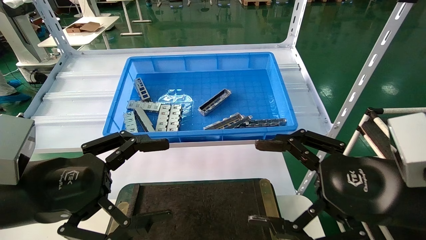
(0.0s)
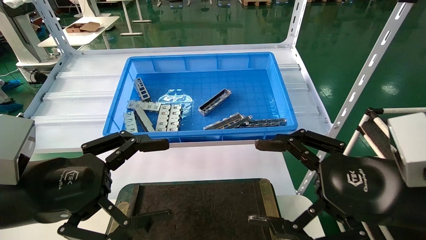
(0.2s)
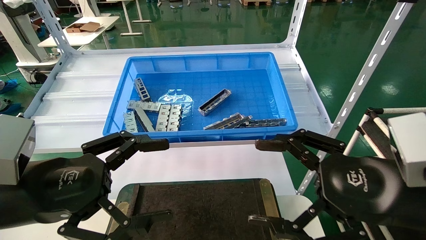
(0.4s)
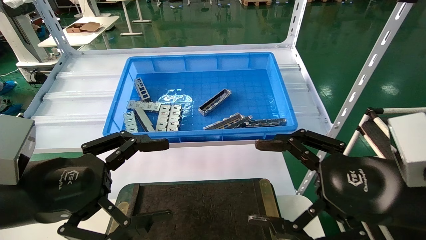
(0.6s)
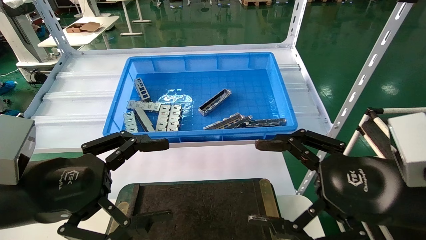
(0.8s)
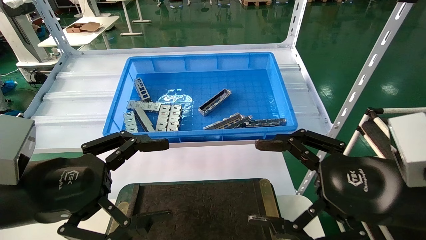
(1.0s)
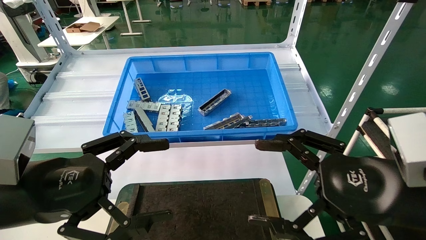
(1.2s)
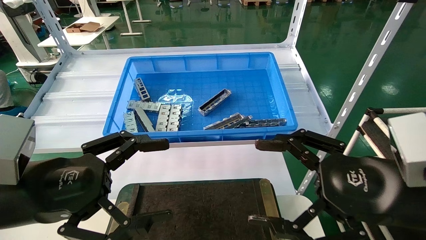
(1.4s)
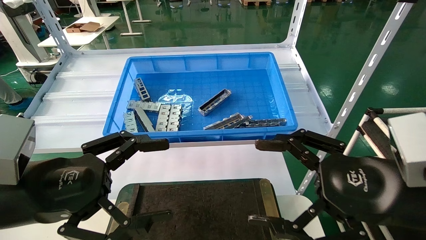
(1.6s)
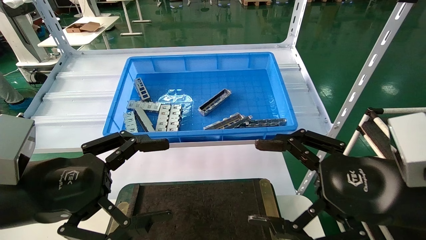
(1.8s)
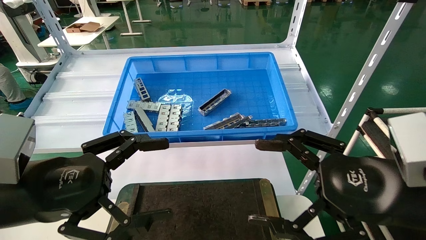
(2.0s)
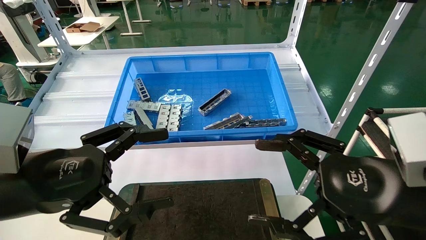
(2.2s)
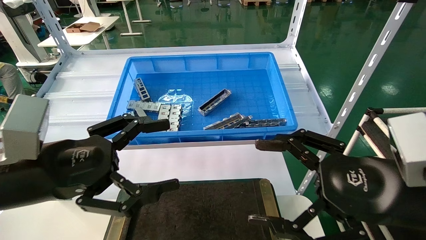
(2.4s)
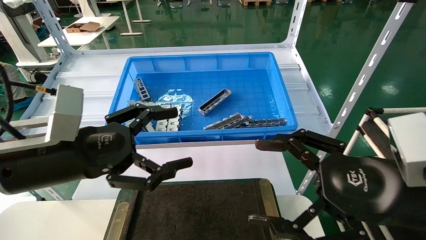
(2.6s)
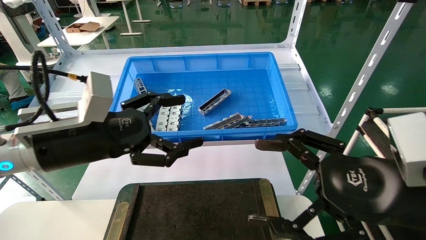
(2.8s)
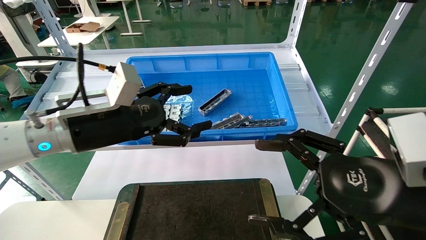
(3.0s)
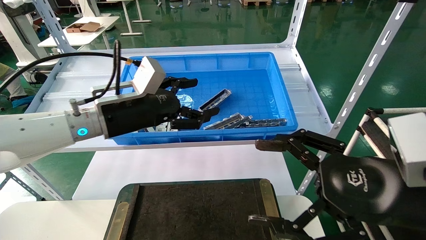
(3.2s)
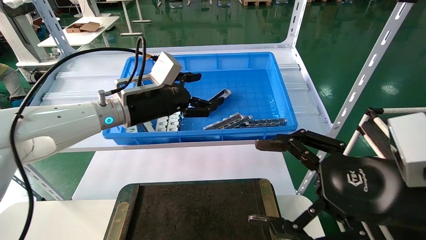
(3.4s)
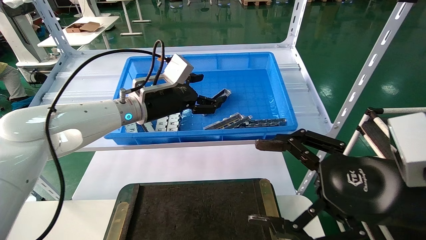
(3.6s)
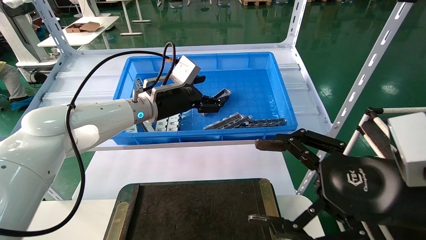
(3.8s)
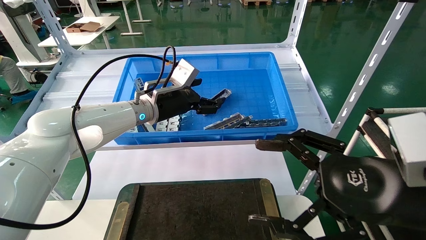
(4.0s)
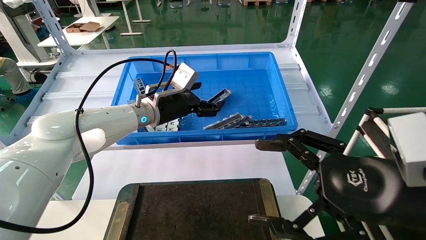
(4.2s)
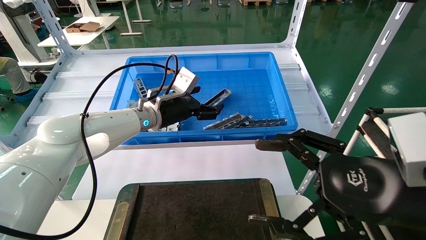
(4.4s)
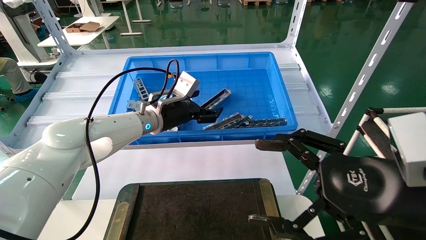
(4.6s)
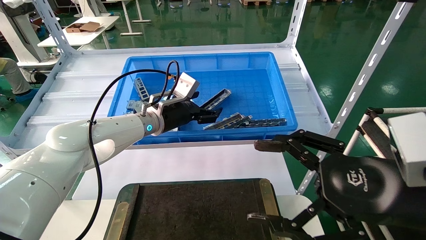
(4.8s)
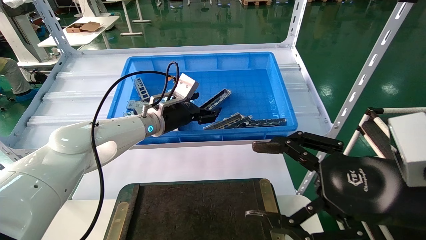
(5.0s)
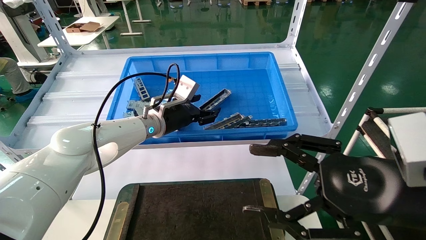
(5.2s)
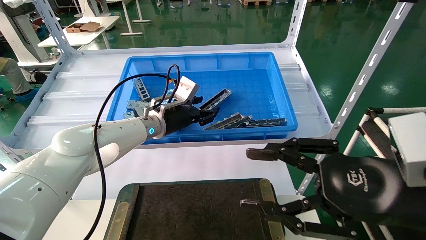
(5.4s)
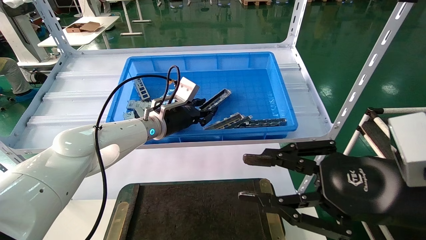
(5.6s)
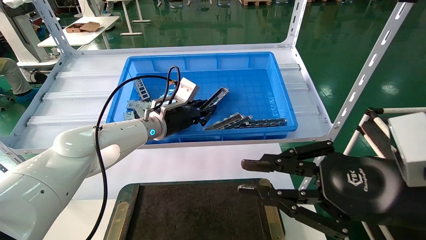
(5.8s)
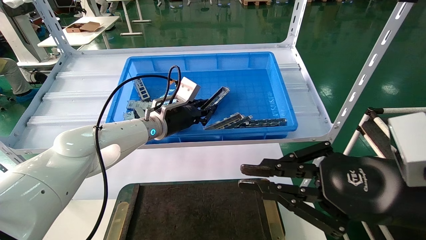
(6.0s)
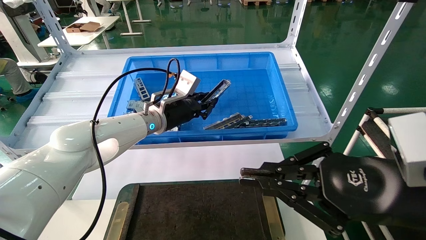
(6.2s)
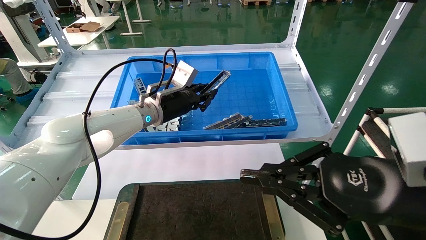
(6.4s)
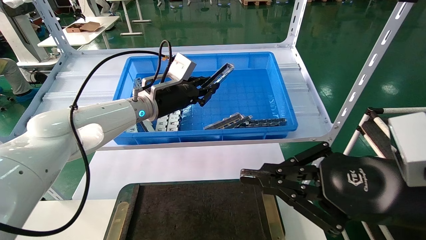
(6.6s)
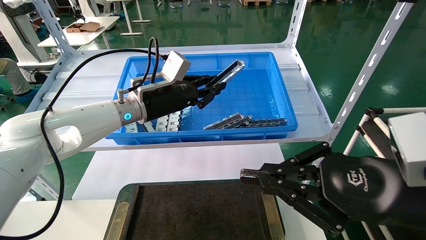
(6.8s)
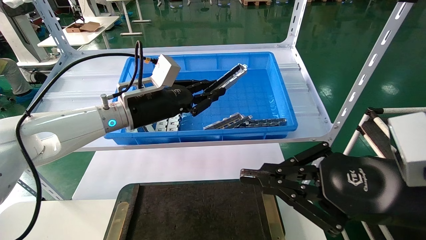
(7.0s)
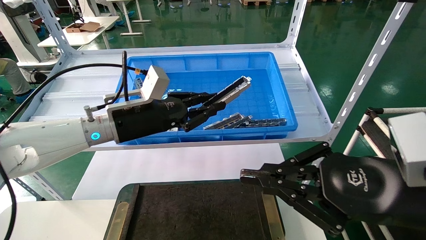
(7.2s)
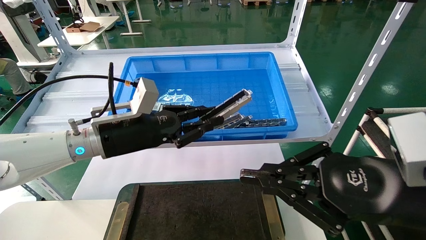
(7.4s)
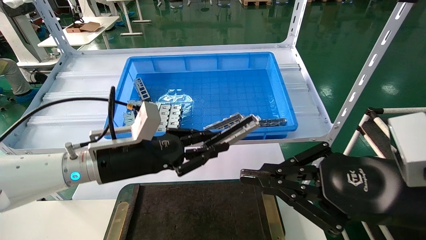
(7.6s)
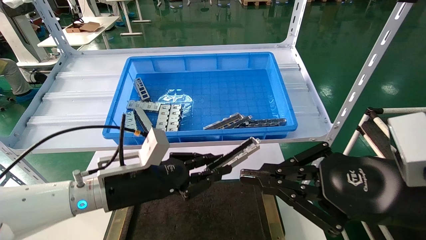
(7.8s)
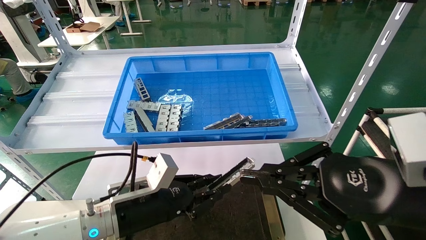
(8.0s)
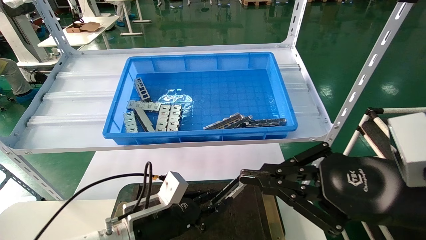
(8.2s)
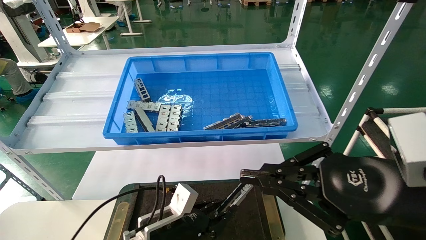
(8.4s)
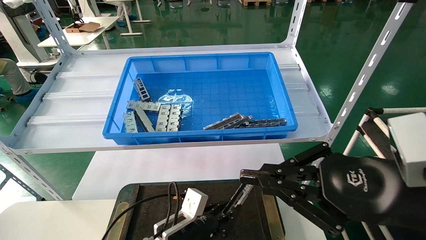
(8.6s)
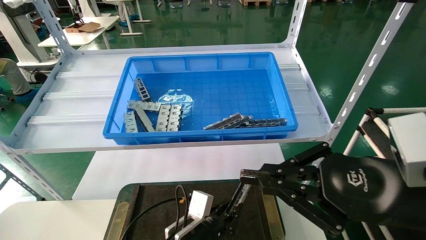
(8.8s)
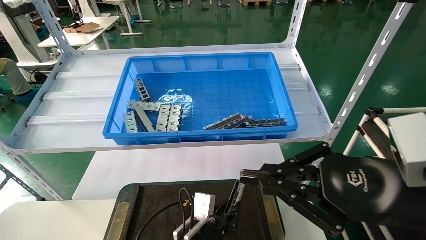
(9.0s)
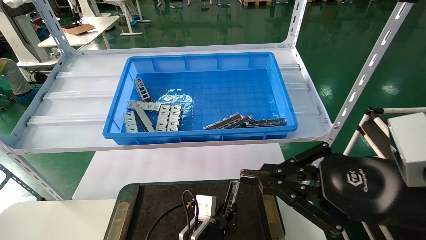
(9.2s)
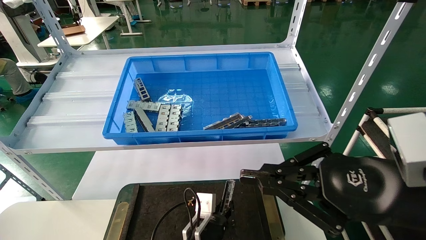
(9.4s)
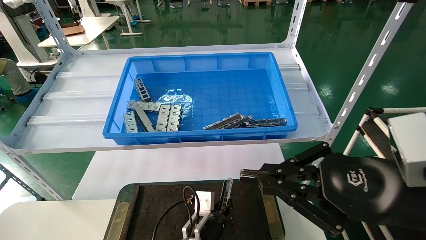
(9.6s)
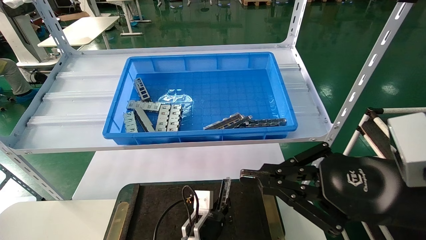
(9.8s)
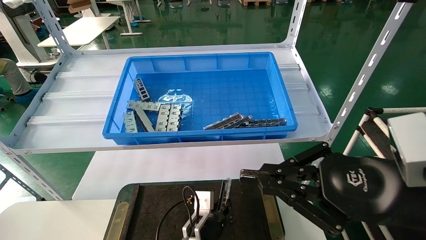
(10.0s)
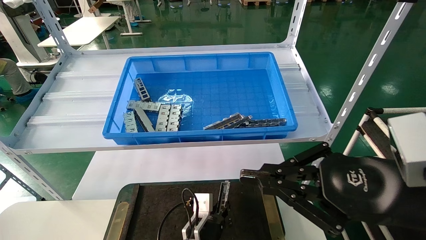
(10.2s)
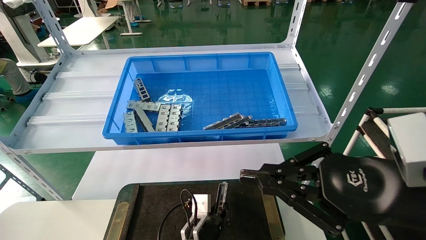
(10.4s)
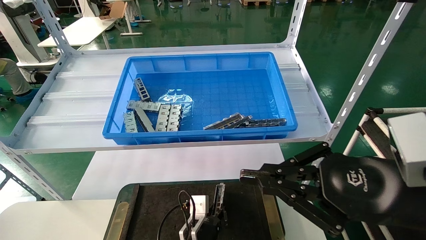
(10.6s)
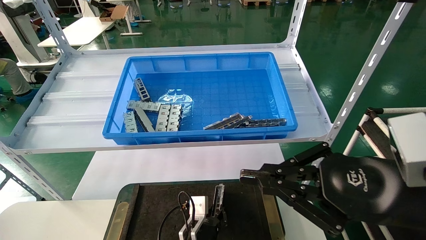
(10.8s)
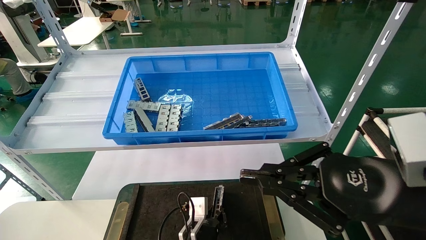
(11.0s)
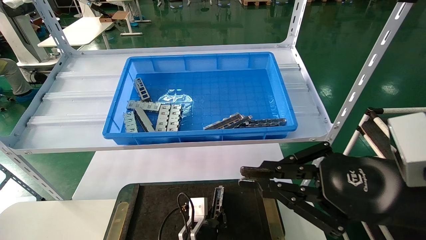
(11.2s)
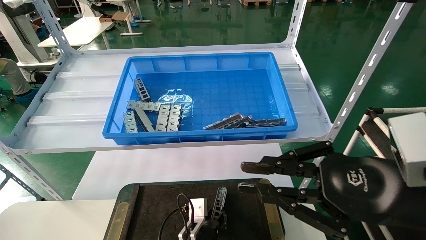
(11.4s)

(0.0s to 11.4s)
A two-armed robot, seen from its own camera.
Task of the whole recording: Grasp the part with one hand and place it on the black container.
Step, 2.6s - 6.8s: Pick up the front USB bracket from the feeding area.
0.0s - 1.4s: Both grippers stay about where they are.
1.4s - 2.8s: The left gripper shifts roughly 10 cm forward.
2.8s - 4.2s: The left gripper is displaced forward and to the right by roughly 20 cm.
4.2s - 5.6s: The left gripper closes its fingers. The right gripper closes.
5.6s - 7.2s: The left gripper travels backward and to the left by roughly 10 cm, and closes up. Meanwhile the right gripper closes.
7.2s - 8.6s: The left gripper is displaced downward by roughly 25 cm.
8.6s - 10.0s: The left gripper travels to the right and downward by some 10 cm.
10.0s - 11.4s: The grippers move only a little.

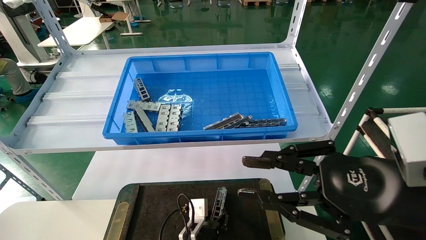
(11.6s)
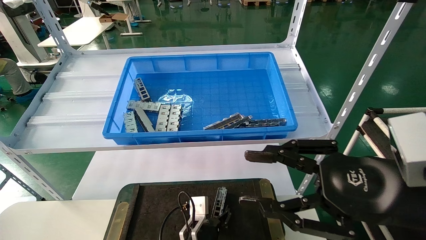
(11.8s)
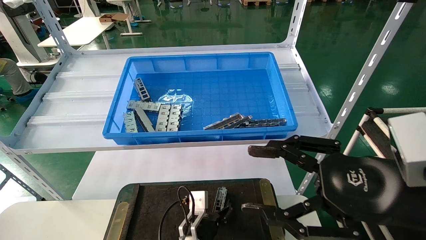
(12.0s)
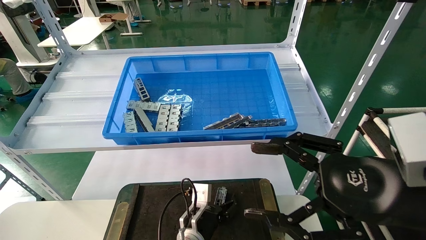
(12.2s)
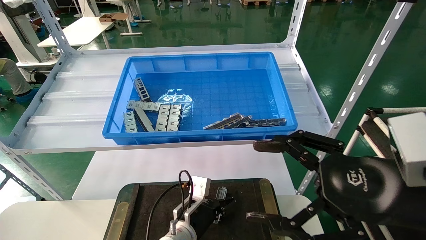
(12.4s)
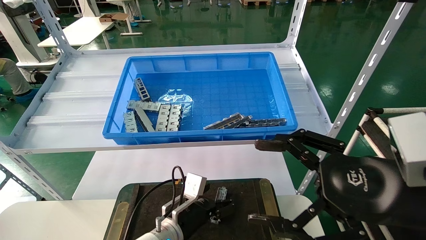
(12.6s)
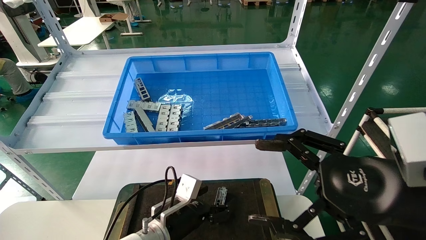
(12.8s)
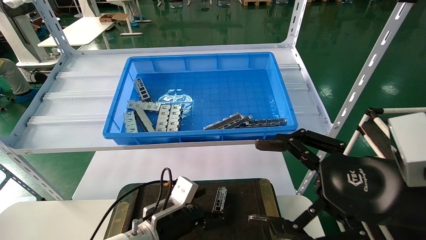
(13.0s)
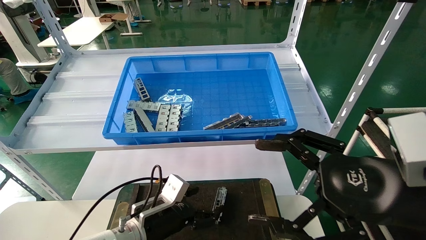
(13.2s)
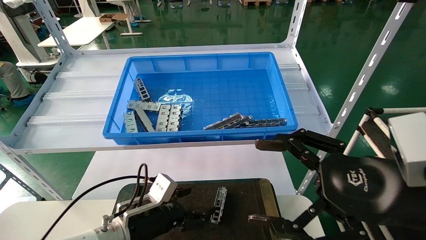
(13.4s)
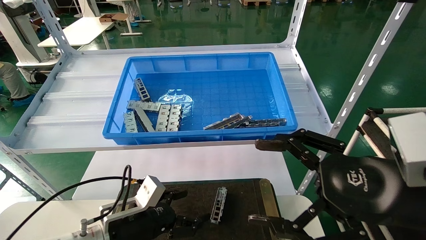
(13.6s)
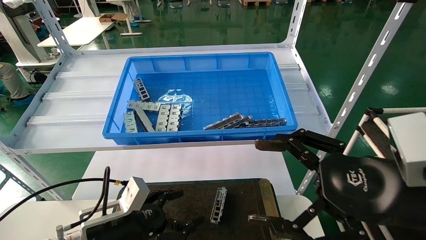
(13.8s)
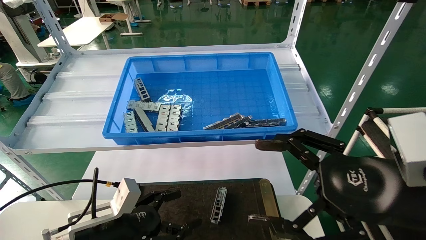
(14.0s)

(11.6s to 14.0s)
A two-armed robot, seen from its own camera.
Task of the whole recording: Grasp the part with one hand and place it on the black container.
11.6s - 12.8s: The right gripper opens its fingers. The left gripper shifts approximately 10 cm upward and to the left, and opens up.
12.8s - 14.0s: The left gripper travels to the left, backward and upward by roughly 15 cm.

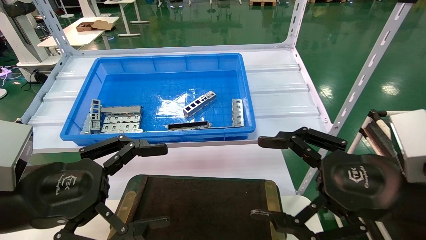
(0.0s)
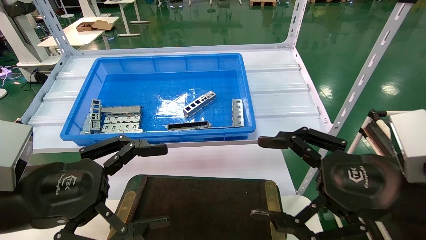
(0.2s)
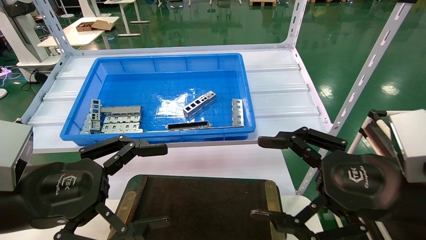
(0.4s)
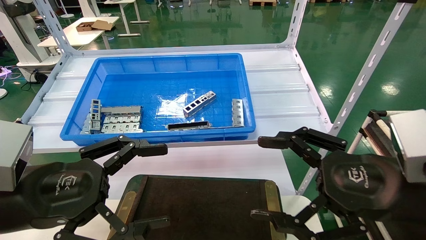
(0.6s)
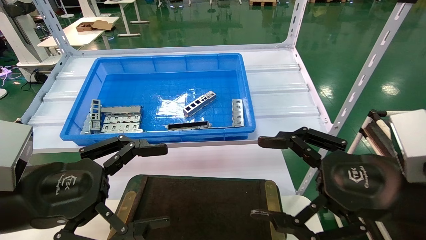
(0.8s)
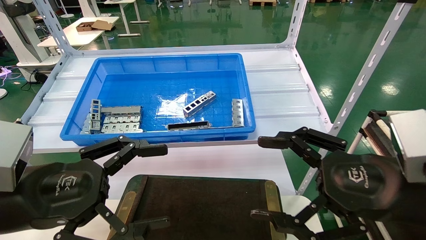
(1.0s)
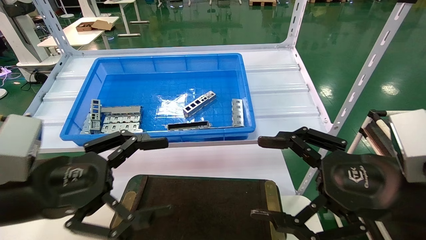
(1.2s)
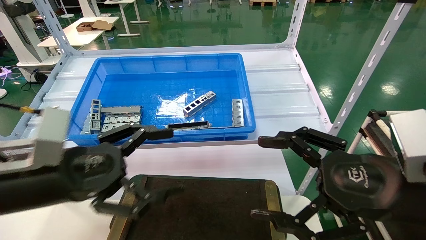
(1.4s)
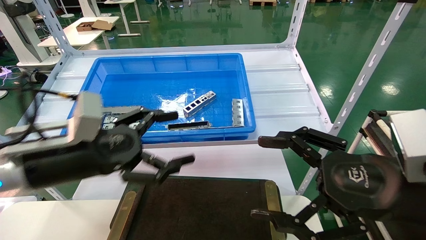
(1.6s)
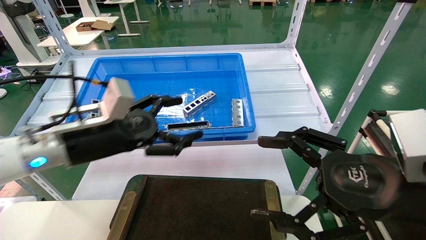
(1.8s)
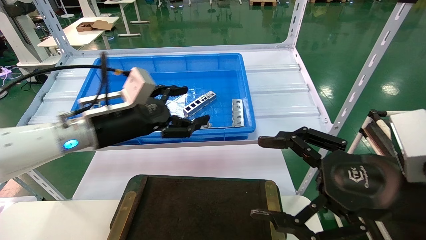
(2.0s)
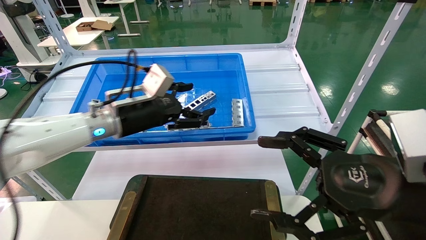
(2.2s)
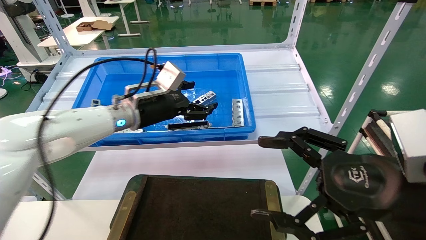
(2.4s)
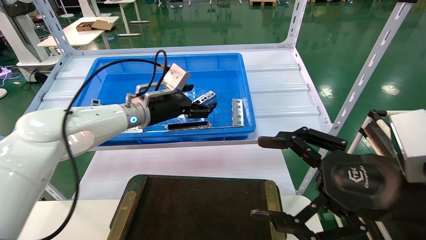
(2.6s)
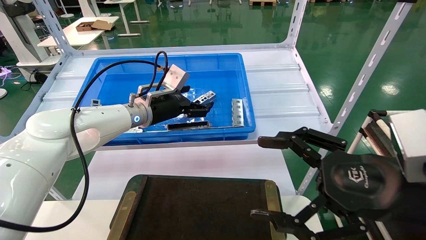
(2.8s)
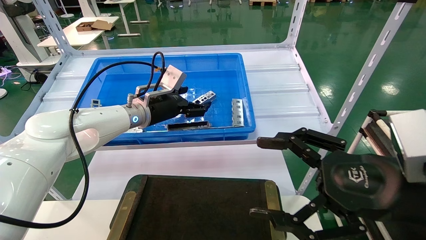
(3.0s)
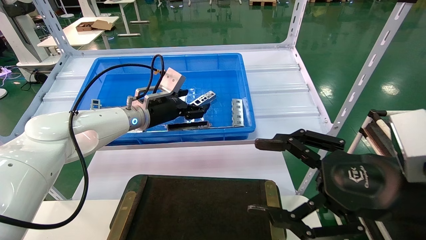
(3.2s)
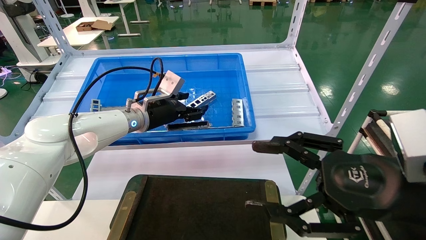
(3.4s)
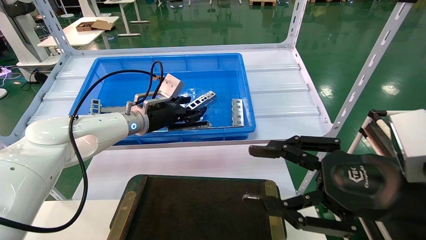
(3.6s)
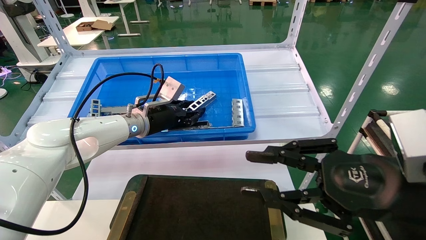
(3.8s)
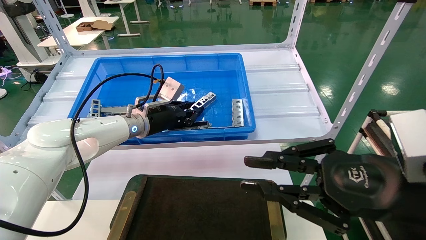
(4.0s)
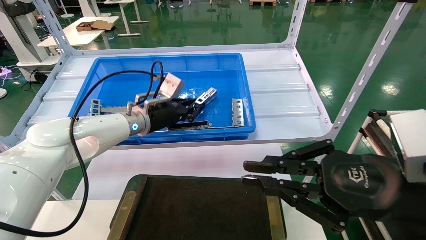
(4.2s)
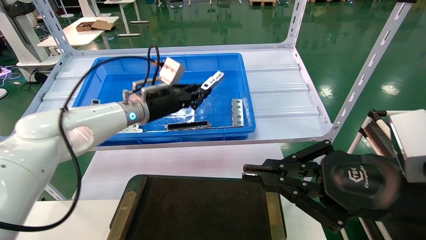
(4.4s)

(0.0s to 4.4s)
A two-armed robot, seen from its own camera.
Task of the whole recording: Grasp the part with one hand and place it on the black container.
Step, 1.0s - 4.0s: Pick up the front USB bracket from the feeding area.
0.0s - 1.4s: The grippers stay close to where they were, moving slightly.
1.4s - 3.0s: The left gripper moves forward, approximately 25 cm.
3.0s - 4.4s: The right gripper closes up. Meanwhile the left gripper closes.
